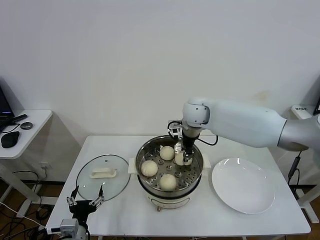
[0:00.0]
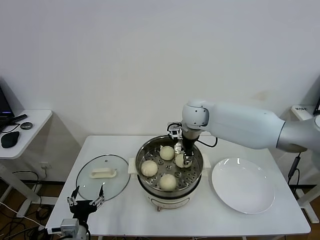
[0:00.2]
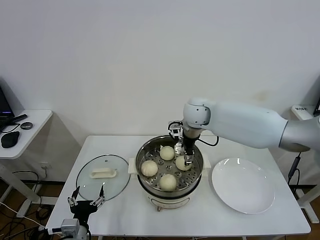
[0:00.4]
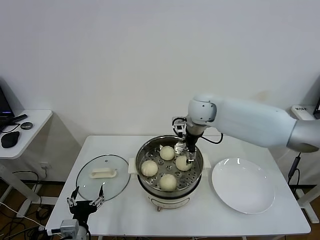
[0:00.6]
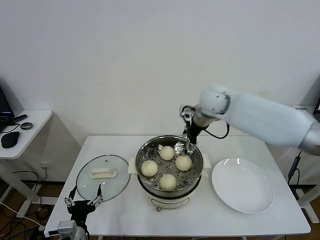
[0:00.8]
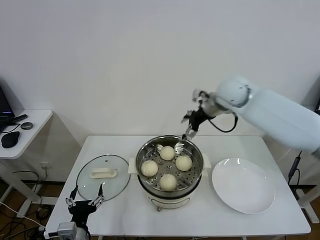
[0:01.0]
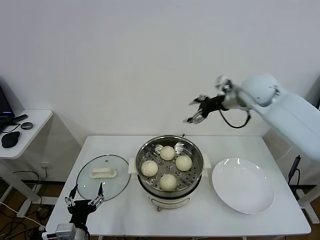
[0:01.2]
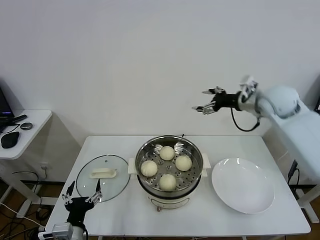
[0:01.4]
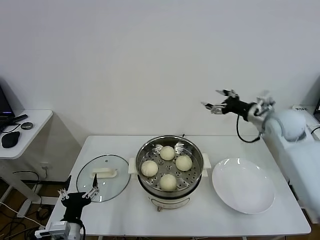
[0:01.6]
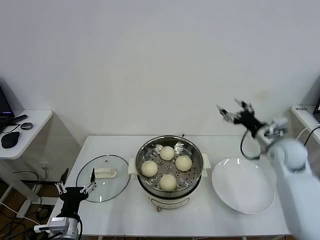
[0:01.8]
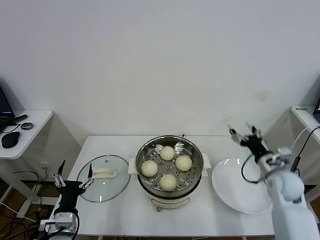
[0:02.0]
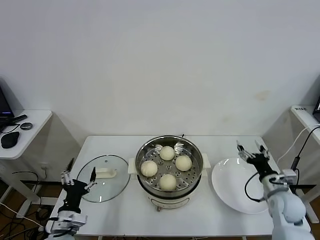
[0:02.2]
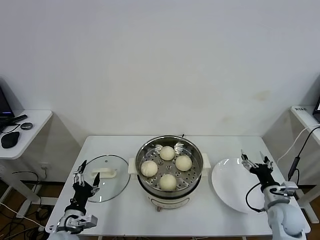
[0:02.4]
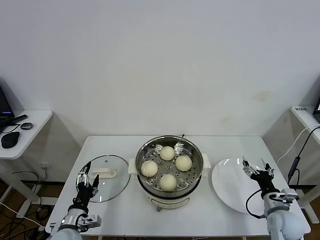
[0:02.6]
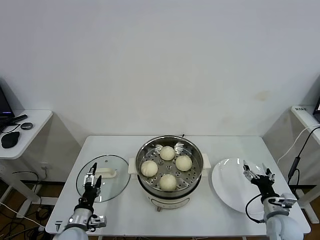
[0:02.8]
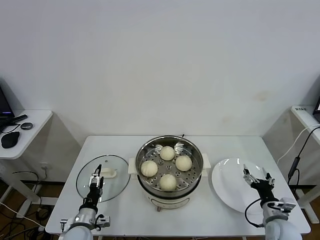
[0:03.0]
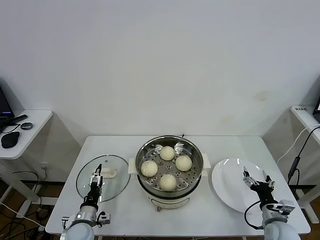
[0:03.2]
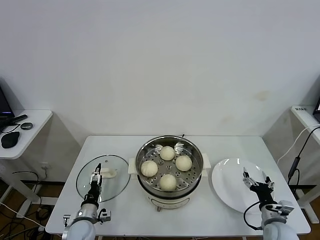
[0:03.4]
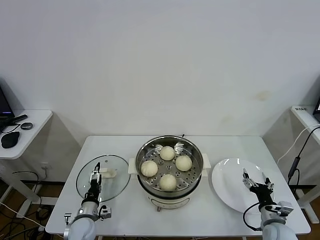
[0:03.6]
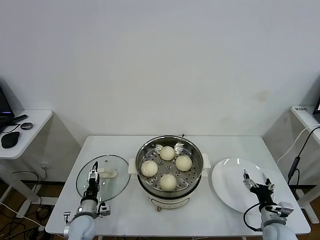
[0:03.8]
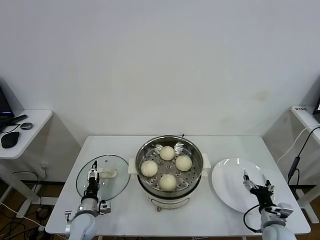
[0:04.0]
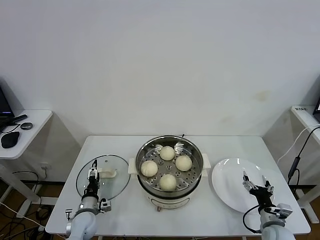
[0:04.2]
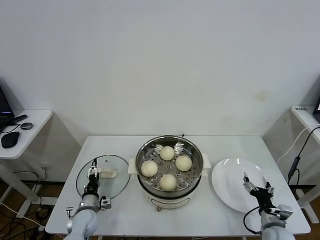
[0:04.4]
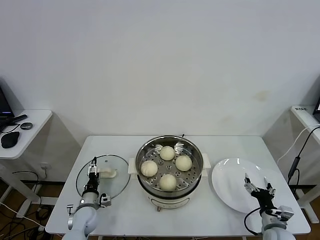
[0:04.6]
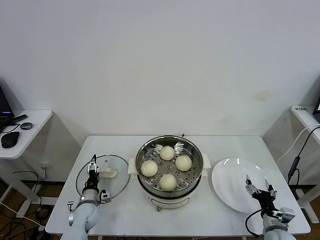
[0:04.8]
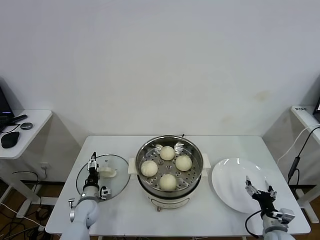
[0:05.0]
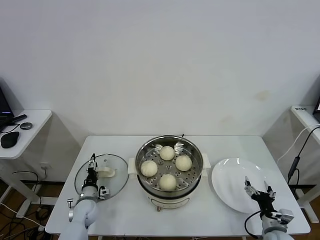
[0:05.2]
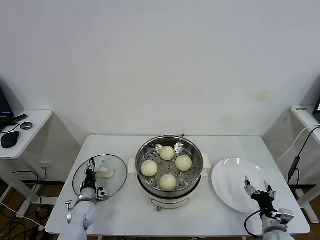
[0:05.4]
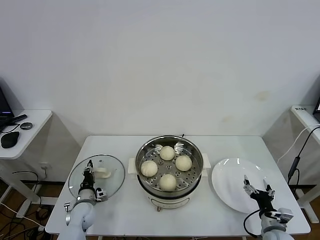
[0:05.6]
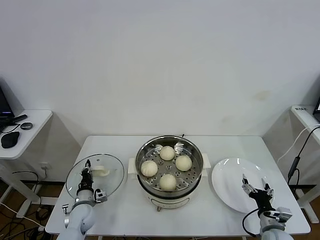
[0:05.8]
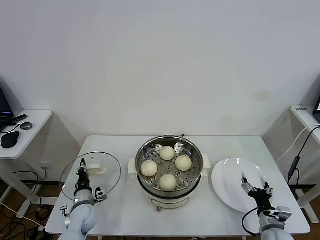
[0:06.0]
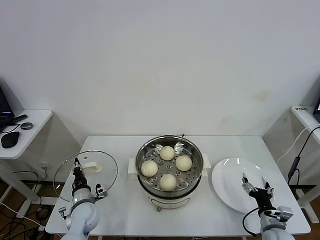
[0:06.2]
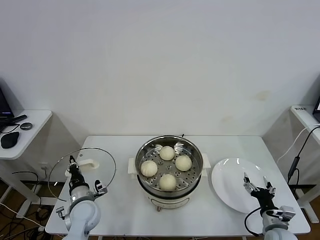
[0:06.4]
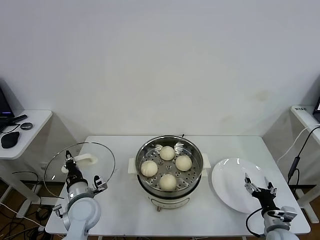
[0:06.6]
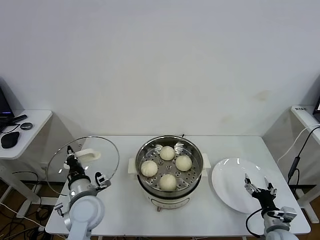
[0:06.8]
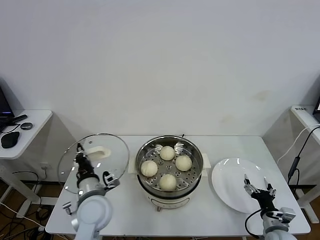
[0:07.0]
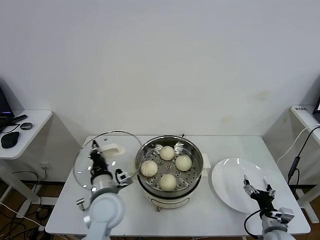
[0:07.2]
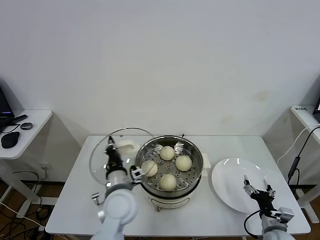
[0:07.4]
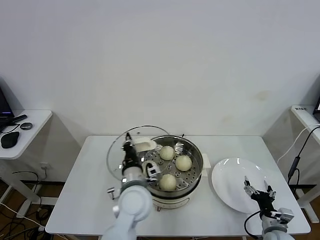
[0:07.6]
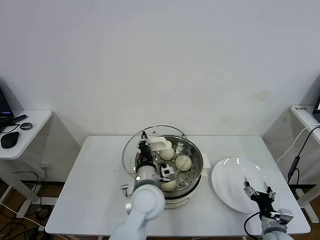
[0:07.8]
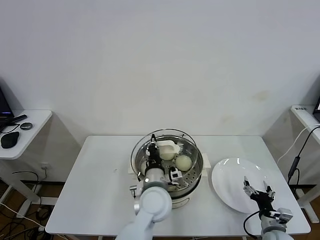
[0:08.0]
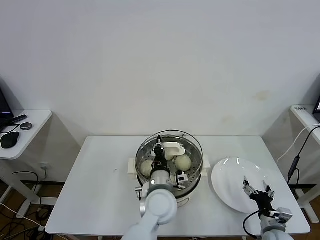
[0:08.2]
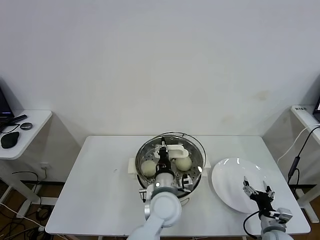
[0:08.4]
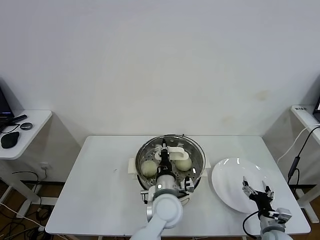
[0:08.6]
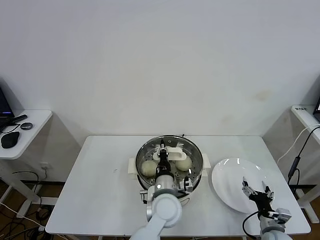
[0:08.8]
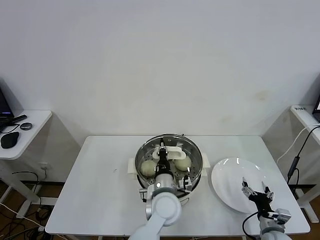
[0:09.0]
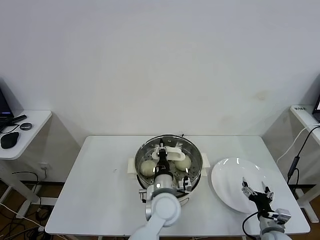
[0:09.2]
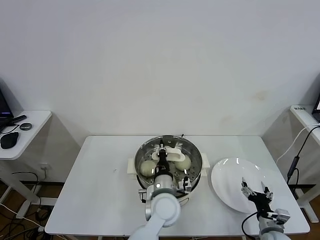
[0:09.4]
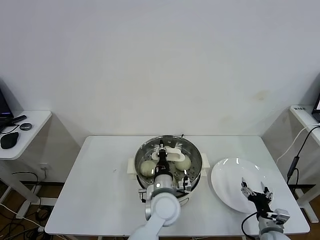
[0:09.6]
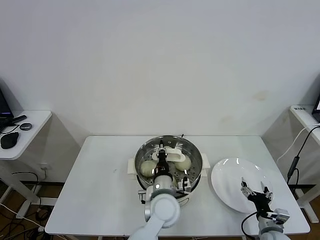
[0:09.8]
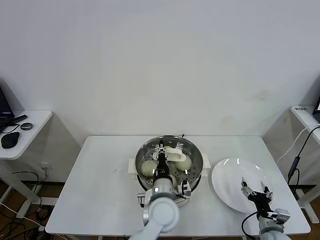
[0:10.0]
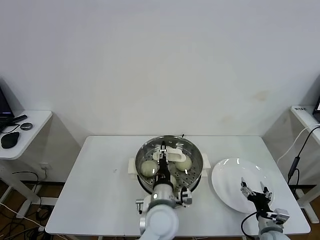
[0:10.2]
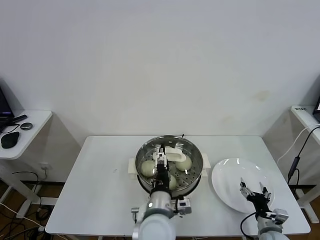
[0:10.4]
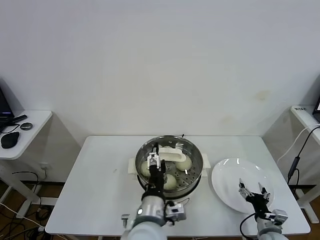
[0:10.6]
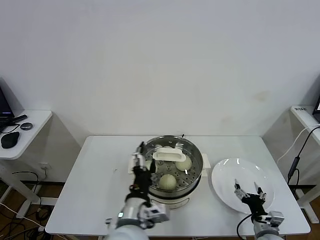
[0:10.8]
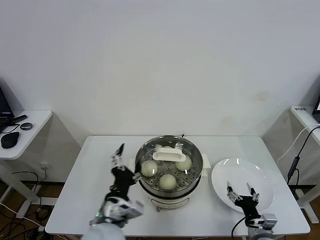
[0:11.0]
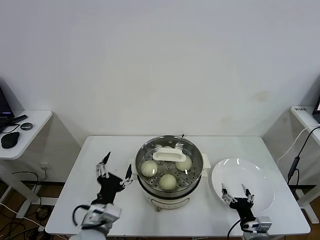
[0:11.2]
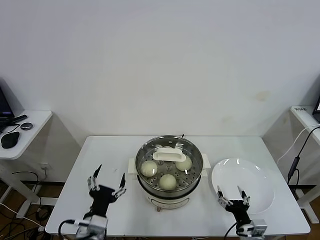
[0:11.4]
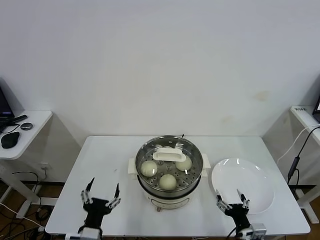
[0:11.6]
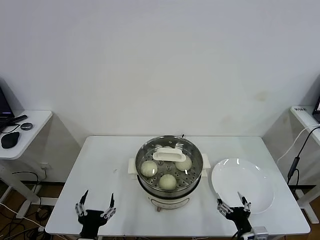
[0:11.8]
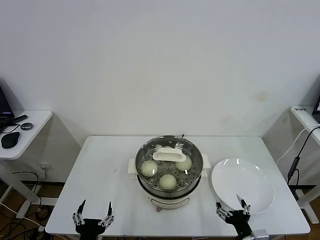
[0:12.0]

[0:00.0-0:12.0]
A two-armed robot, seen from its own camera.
Task of the whole recording: take steamed baozi put them in steamer.
Step, 0:00.8 to 0:05.8: Grasp the pot lid with left gripper.
Step, 0:06.0 to 0:10.6: Place the pot lid on the steamer with left gripper.
0:00.0 to 0:01.6: The right gripper travels to the right by approximately 25 cm, and opens its fingers.
0:01.6 to 0:03.0: The right gripper goes roughly 35 cm downward and backward, while the left gripper goes roughly 10 cm downward and forward.
0:03.0 to 0:04.4: The left gripper is displaced forward and downward by roughly 10 cm.
0:04.4 to 0:06.0: The left gripper closes its fingers.
0:06.0 to 0:07.6: The left gripper heads to the right and upward, covering approximately 30 cm.
0:07.6 to 0:09.0: The left gripper moves to the right, some 10 cm.
0:09.0 to 0:10.4: The left gripper moves backward, about 5 cm, and opens its fingers.
0:10.4 to 0:12.0: The left gripper is displaced to the left and backward by about 25 cm. Meanwhile the right gripper heads to the left and backward, covering about 10 cm.
